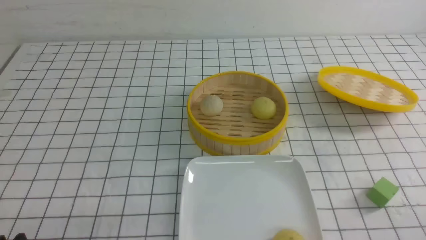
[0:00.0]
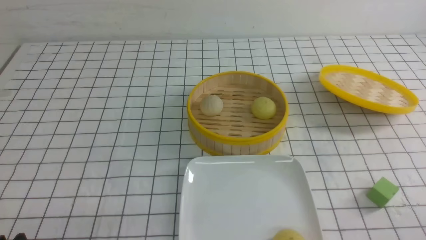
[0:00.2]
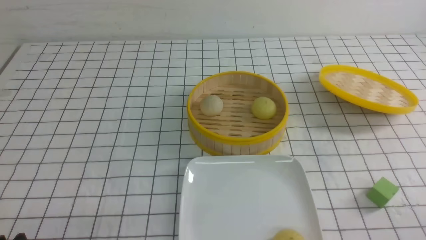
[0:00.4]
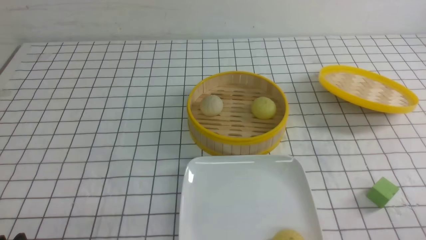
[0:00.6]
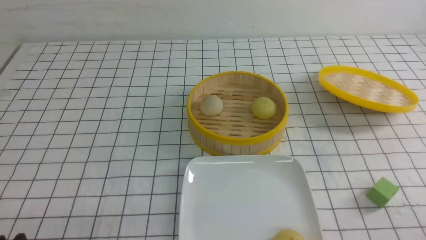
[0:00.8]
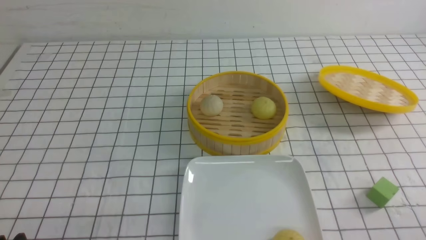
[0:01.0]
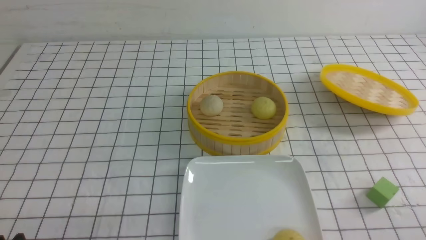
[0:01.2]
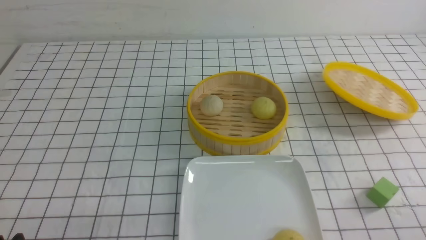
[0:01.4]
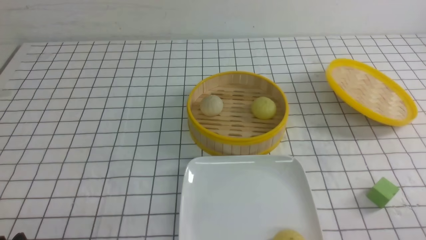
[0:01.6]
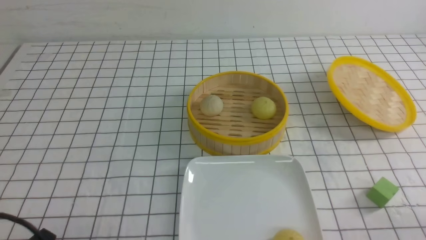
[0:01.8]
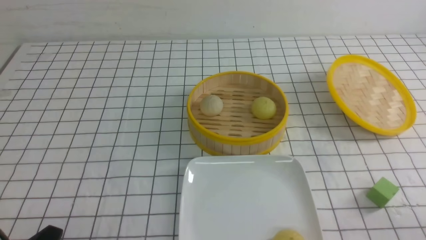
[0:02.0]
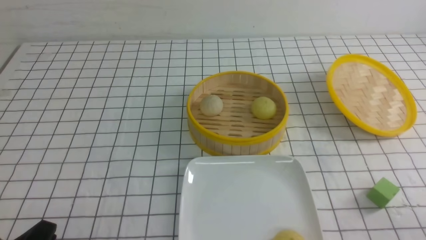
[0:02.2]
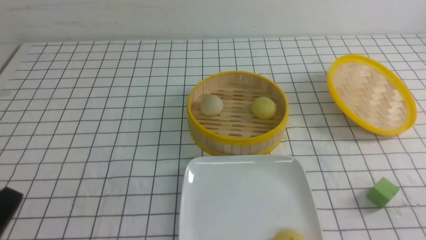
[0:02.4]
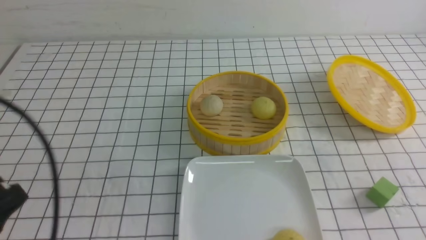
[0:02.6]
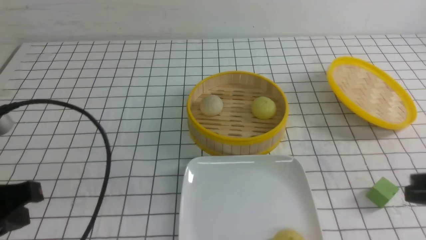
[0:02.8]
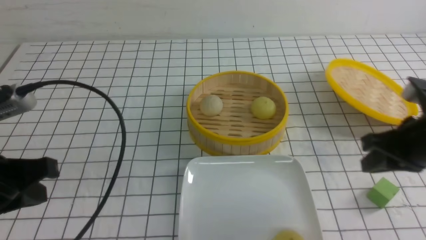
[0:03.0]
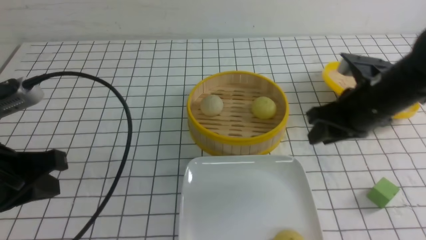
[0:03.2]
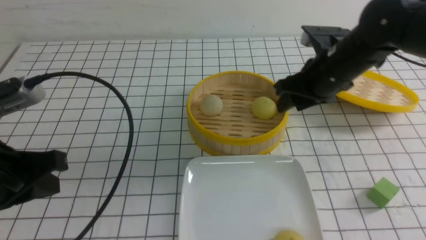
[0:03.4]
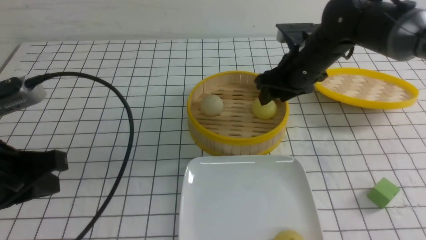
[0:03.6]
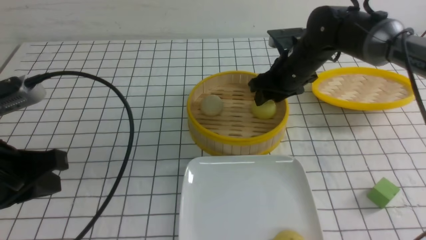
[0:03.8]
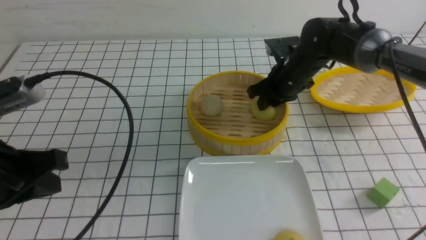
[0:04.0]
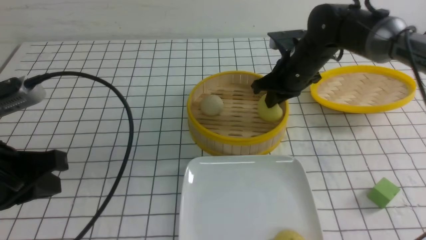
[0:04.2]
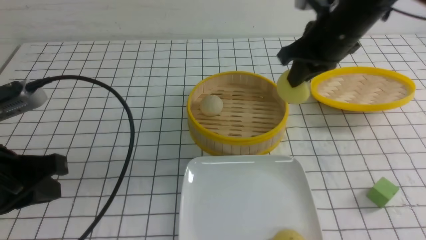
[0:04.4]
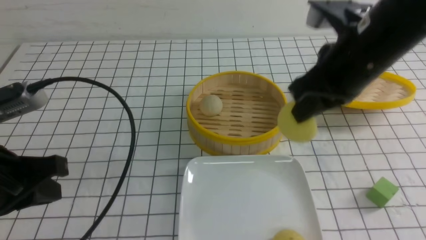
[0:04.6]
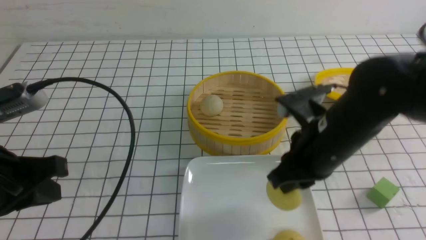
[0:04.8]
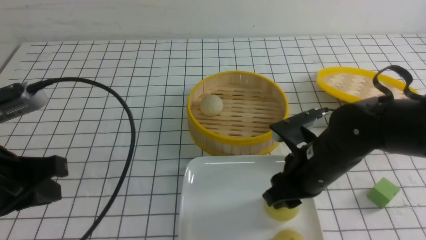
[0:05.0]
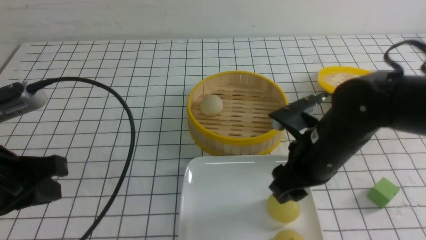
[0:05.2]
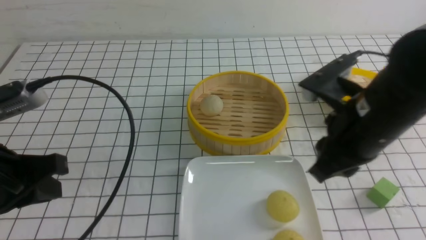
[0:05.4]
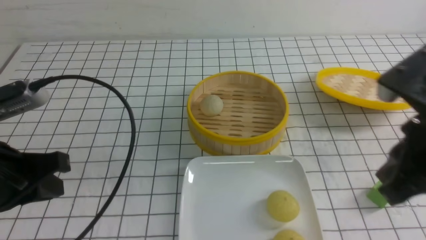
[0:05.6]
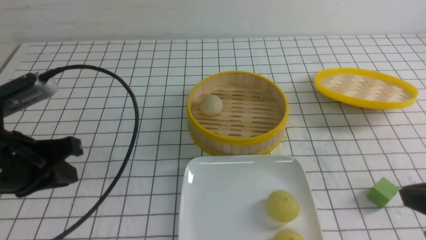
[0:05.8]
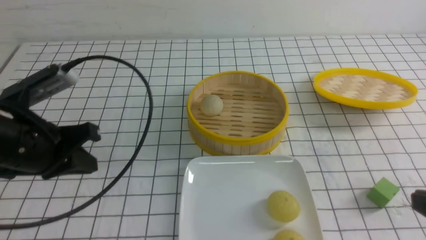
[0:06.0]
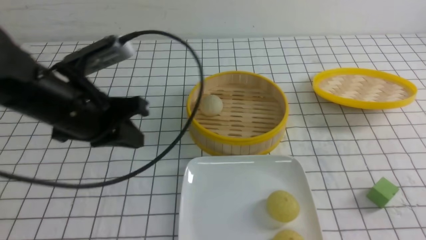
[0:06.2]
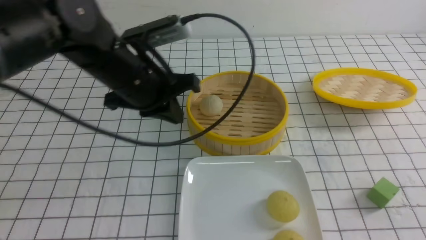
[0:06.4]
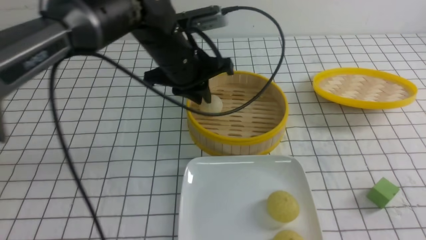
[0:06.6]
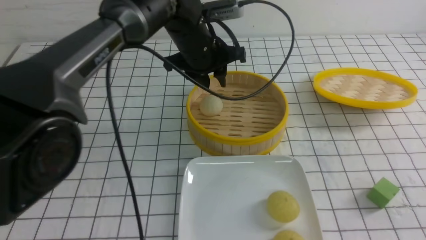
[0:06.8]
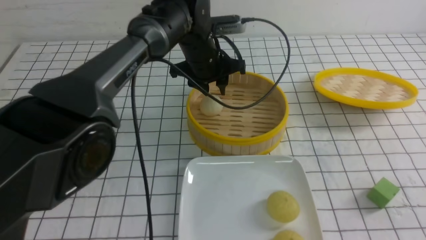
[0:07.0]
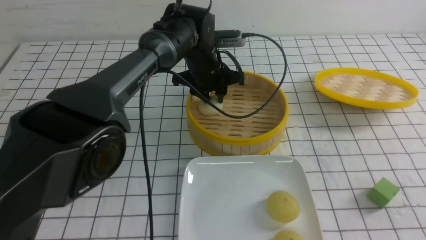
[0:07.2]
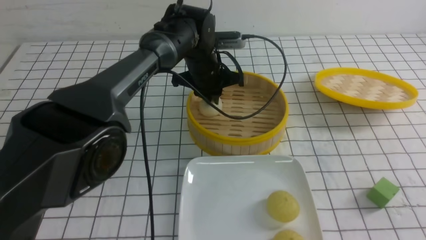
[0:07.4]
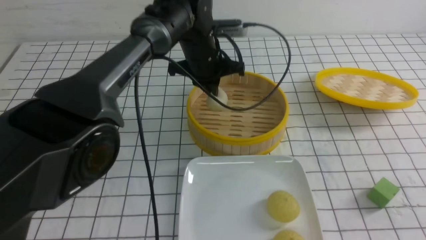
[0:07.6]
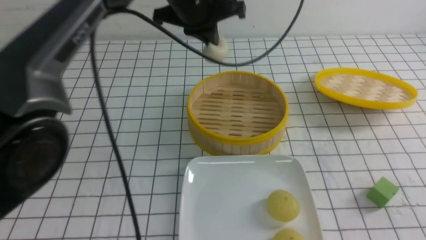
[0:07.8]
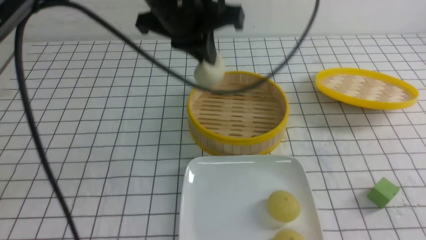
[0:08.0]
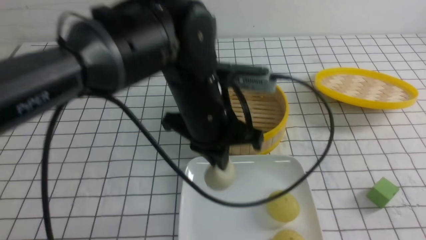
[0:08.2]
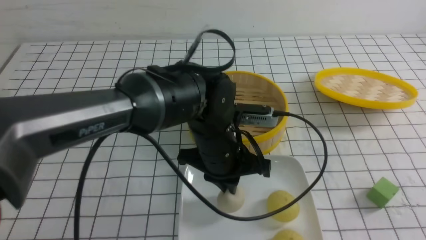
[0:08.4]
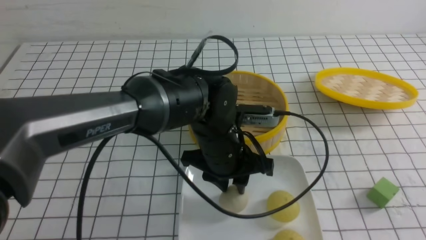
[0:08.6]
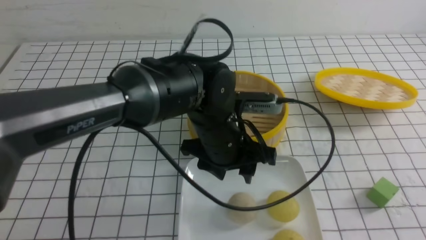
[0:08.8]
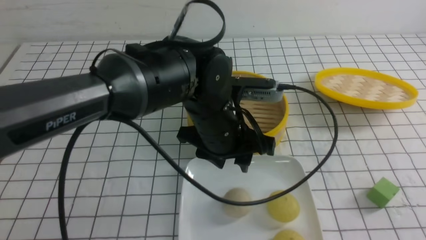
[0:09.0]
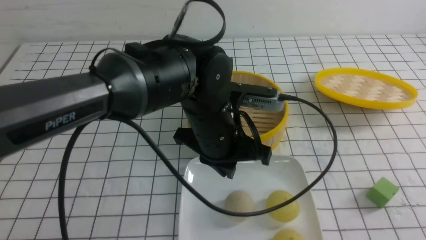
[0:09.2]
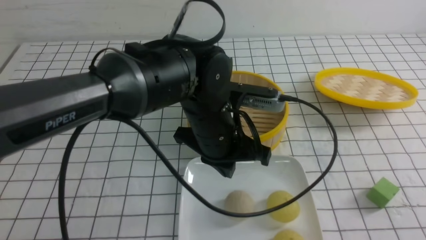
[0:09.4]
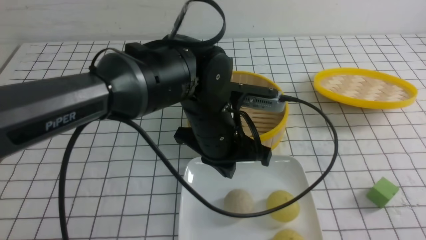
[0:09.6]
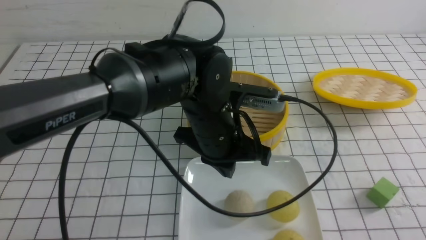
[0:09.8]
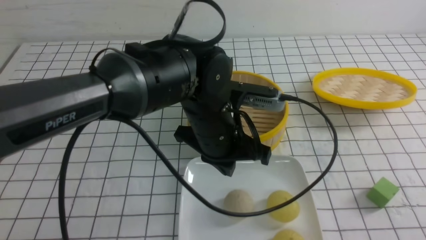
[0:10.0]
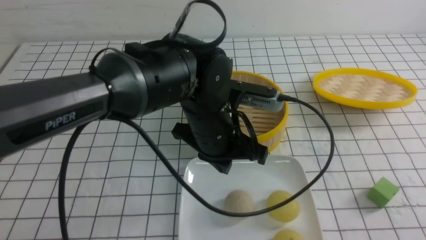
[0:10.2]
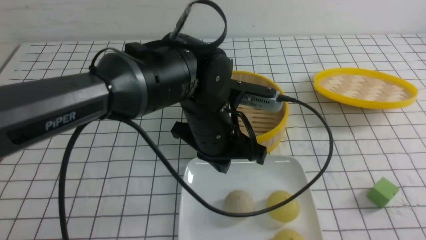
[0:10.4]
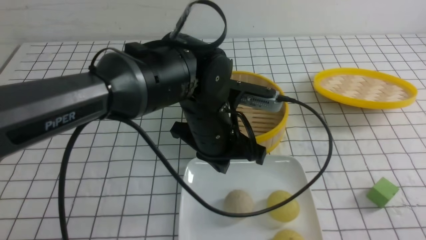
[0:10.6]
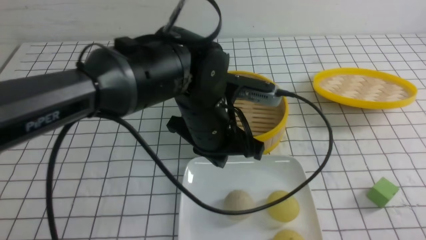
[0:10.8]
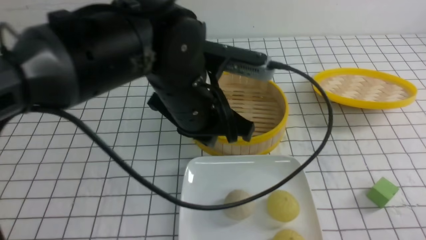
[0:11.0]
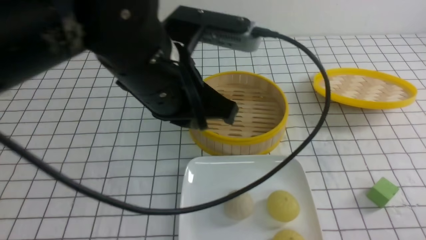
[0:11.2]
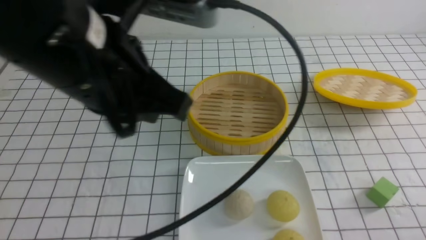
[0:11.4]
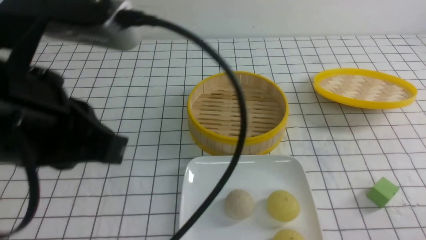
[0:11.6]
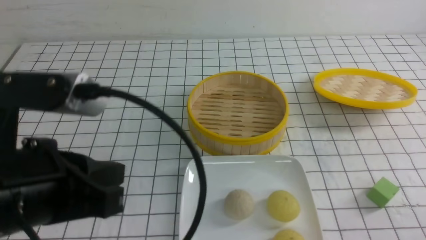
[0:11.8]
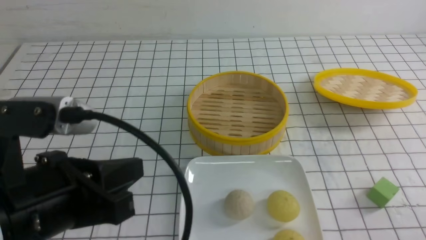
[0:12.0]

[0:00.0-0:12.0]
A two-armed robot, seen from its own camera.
Step, 0:00.0 to 0:04.0: use the right arm to grab the steamed stuffed bun that is closest to it.
Step, 0:04.4 to 0:05.2: use the right arm to put the steamed stuffed bun into the plate.
Step, 0:05.4 to 0:07.4: use the left arm to grab the steamed stuffed bun that is closest to it.
Step, 0:07.8 to 0:08.6: use the left arm to put the steamed stuffed bun into the plate.
0:00.0 to 0:01.6: The grippers stay close to where they were, moving slightly.
0:01.6 to 0:03.0: The right gripper is displaced forward and upward by roughly 20 cm. The left gripper is displaced upward and forward by about 15 cm, and closes its fingers.
0:03.0 to 0:04.4: The right gripper shifts about 15 cm forward and to the left, and opens, then closes again.
0:04.4 to 0:06.0: The right gripper shifts about 30 cm backward and to the right, and opens, then closes once more, while the left gripper goes approximately 5 cm forward.
0:06.0 to 0:07.6: The left gripper heads forward and to the right, covering roughly 30 cm, and opens, then closes again.
0:07.6 to 0:09.0: The left gripper heads backward, covering some 15 cm, and opens up.
0:09.0 to 0:10.4: The left gripper closes.
0:10.4 to 0:12.0: The right gripper is displaced downward by some 5 cm. Meanwhile the left gripper is displaced backward and to the left by approximately 25 cm.

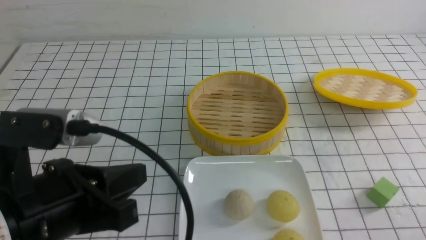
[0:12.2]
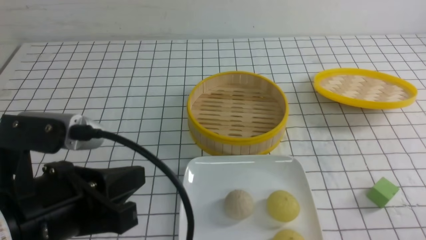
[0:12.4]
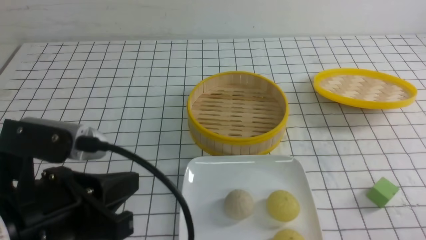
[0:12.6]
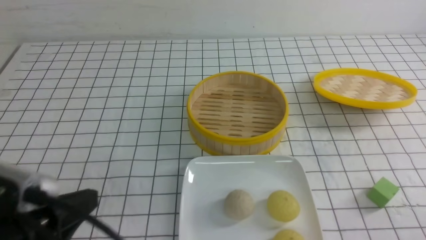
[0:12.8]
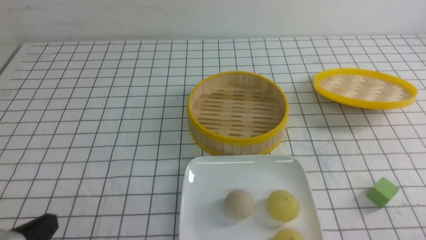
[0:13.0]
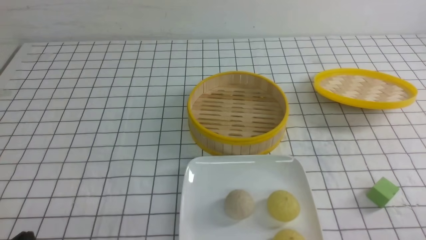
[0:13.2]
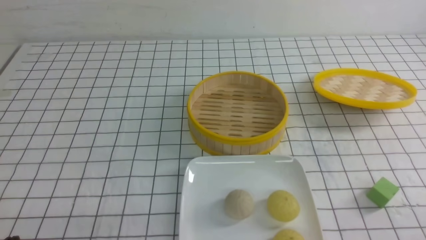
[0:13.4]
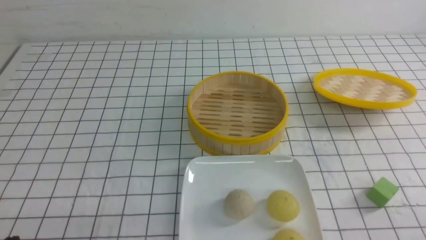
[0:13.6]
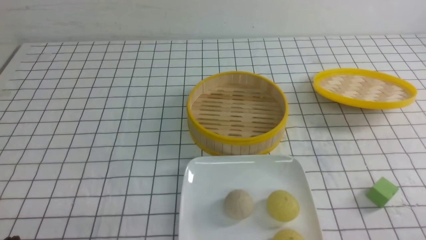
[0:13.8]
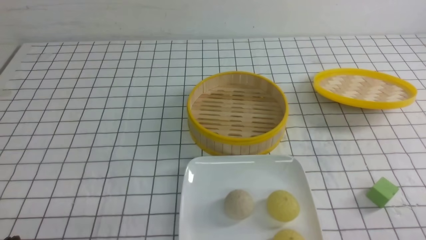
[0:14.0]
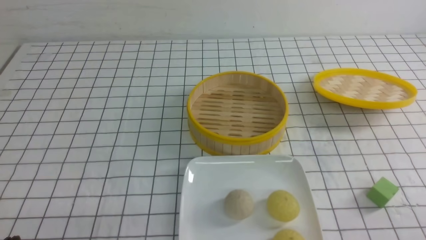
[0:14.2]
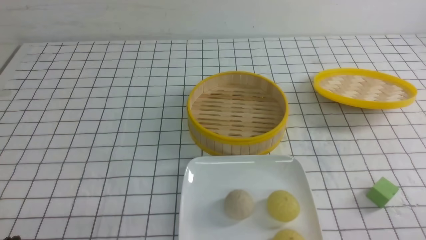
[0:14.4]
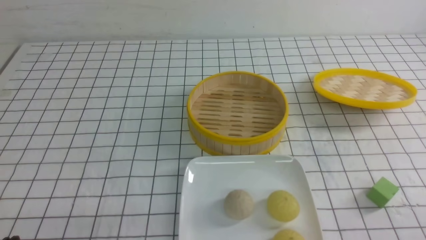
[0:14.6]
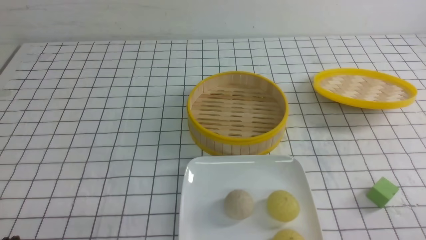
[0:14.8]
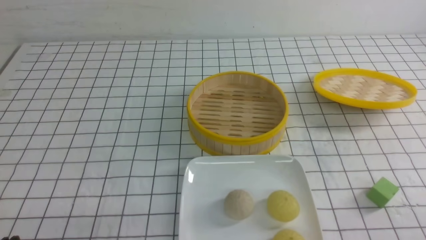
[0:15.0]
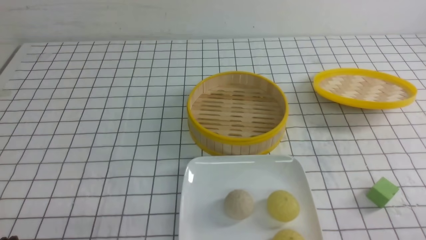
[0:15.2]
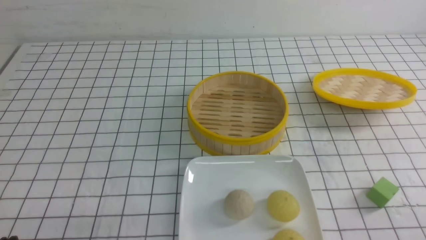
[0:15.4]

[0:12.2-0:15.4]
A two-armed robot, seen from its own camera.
0:12.2 to 0:13.8: The left gripper goes approximately 20 cm downward, to the left and backward.
0:13.8 to 0:15.4: The two grippers keep their place.
